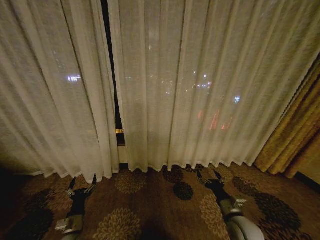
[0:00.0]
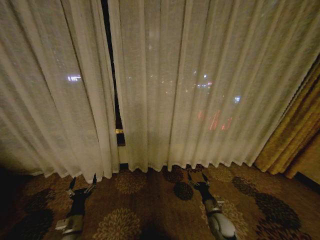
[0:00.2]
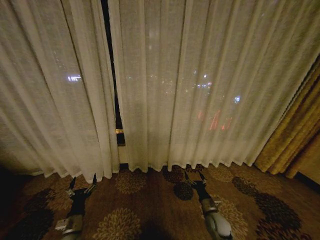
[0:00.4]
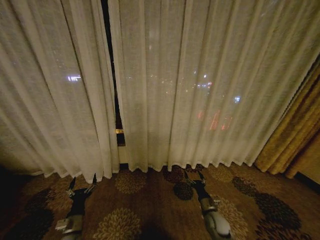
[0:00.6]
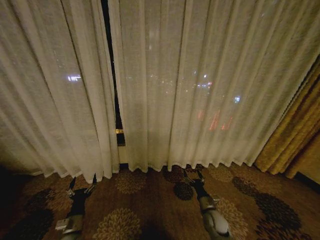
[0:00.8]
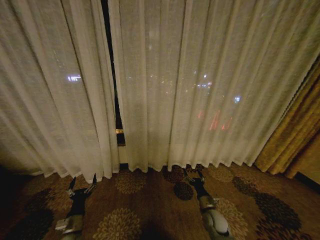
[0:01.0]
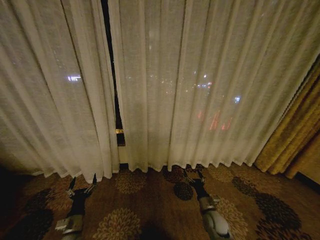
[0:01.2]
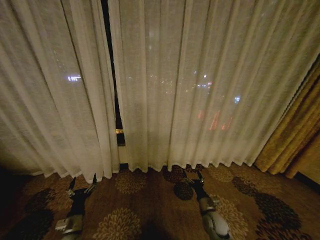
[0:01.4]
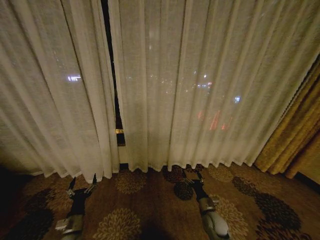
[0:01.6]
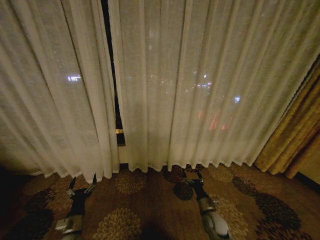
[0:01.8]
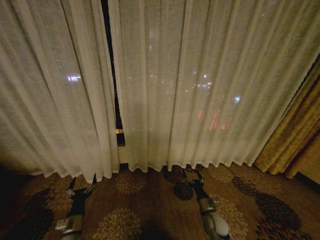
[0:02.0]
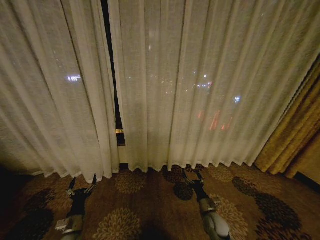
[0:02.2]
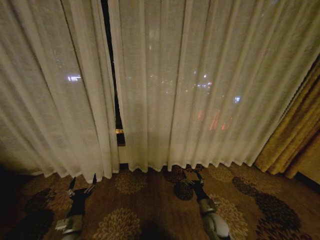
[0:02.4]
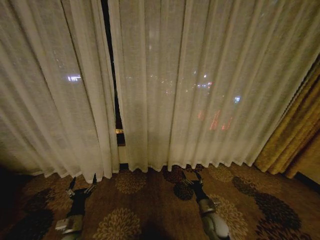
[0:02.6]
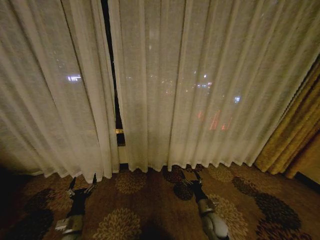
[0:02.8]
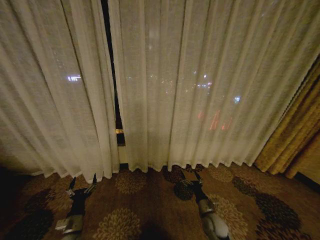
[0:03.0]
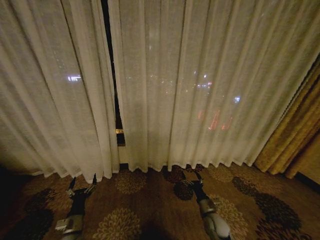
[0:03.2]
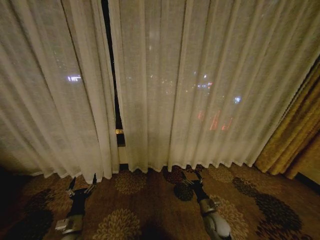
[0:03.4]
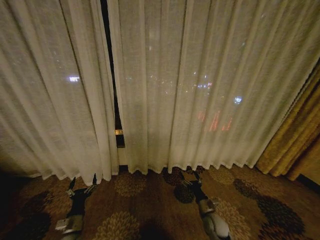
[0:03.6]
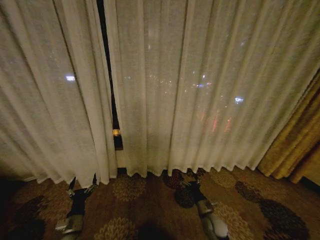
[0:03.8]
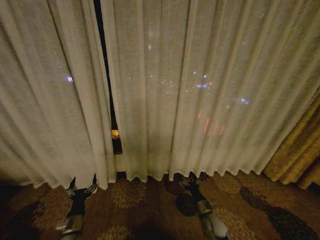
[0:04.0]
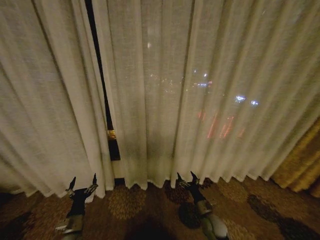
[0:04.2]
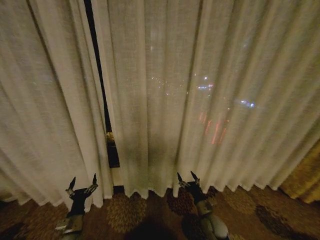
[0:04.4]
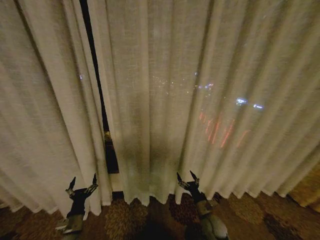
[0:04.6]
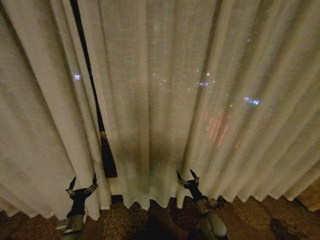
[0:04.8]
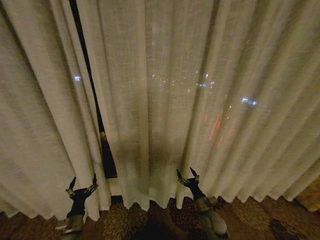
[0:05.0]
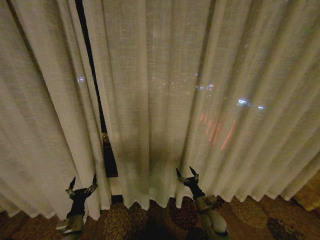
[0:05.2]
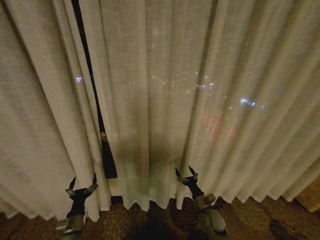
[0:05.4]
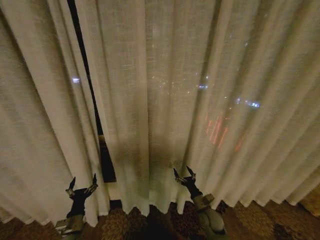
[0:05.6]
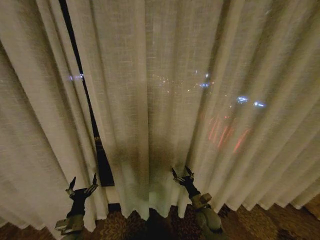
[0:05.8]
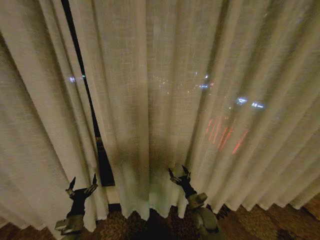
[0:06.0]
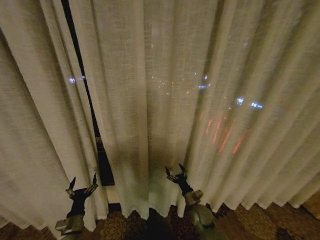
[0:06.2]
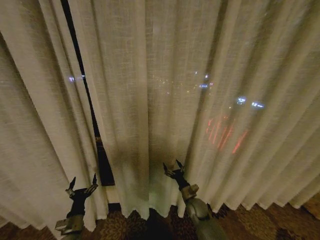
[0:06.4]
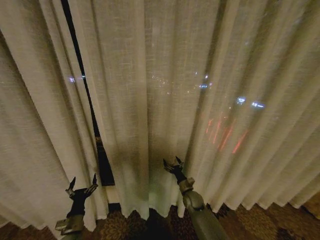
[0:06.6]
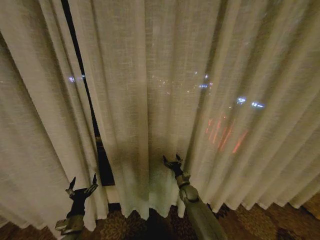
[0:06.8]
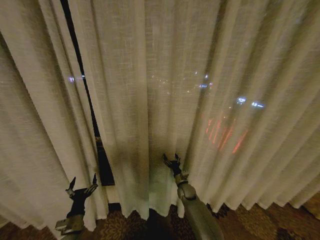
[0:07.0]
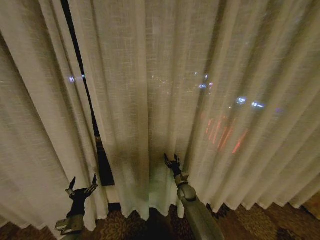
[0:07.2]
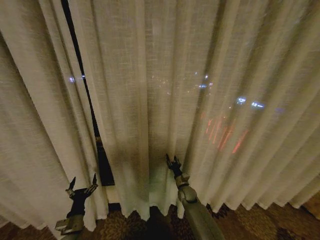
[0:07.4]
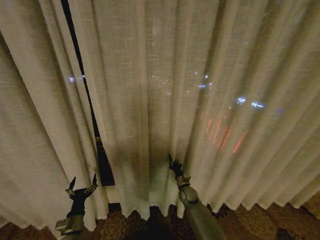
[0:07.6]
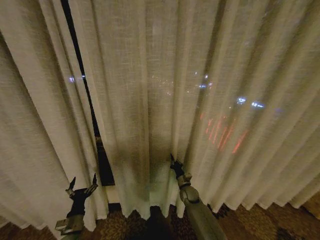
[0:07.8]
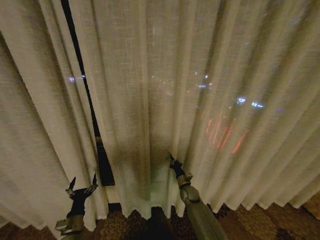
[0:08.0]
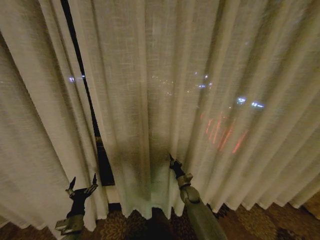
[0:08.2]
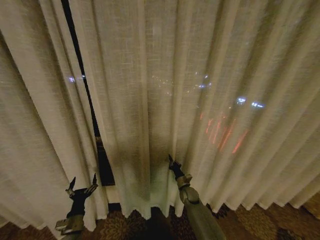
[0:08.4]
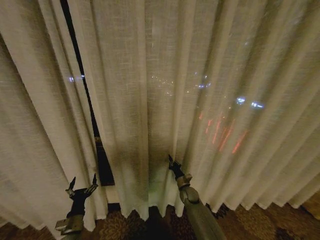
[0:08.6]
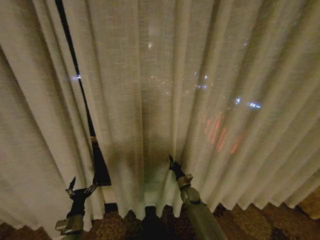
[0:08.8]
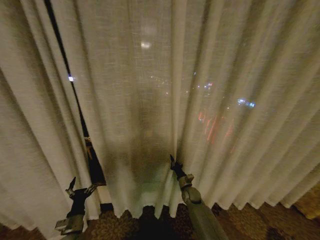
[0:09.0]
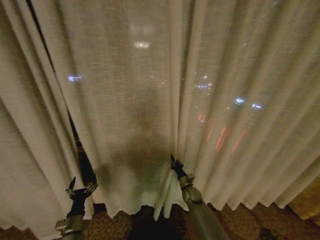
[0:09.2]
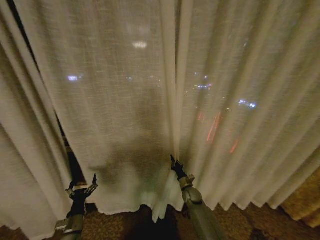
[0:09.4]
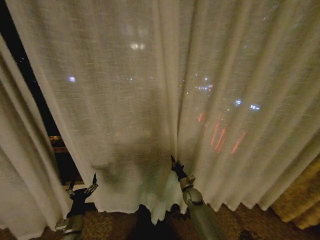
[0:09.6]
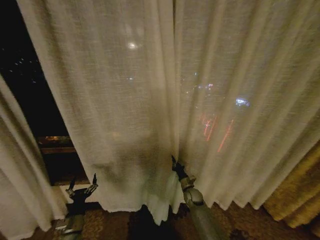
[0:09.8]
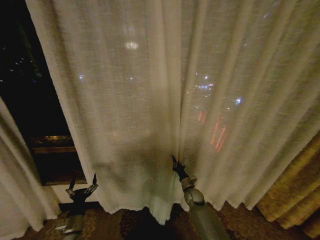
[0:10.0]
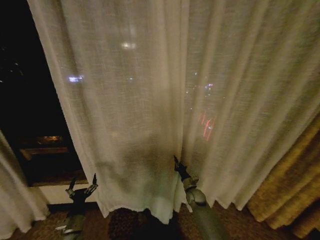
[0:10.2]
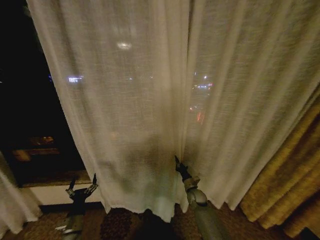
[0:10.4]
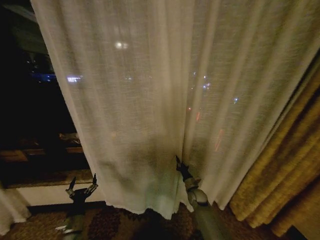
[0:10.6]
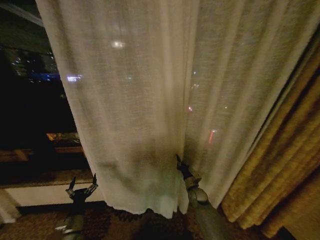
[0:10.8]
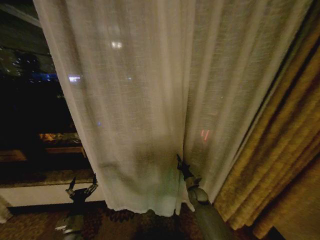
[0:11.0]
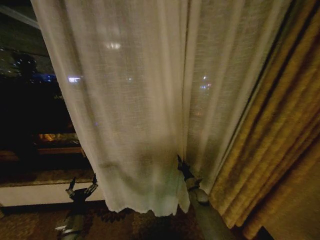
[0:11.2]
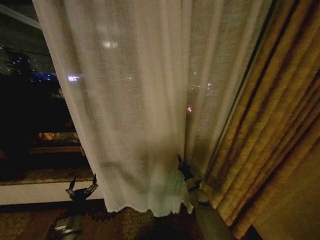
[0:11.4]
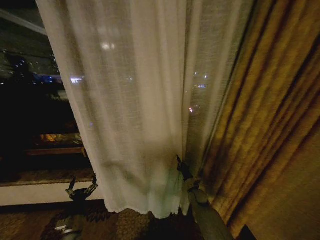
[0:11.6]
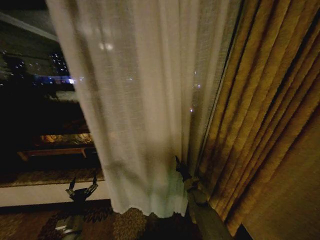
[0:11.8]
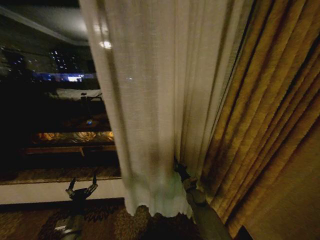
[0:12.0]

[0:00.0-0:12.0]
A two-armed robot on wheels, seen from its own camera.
Task of the whole recording: Open the curtains by pulling them apart, changing their state from closed to fully open.
0:01.6 to 0:03.0: Both grippers stay about where they are.
0:06.0 to 0:07.6: The right gripper heads forward, covering roughly 10 cm, and closes its fingers.

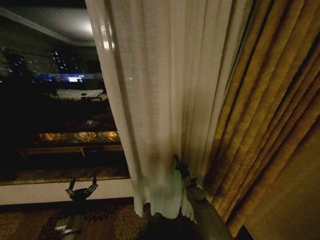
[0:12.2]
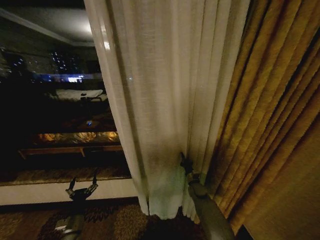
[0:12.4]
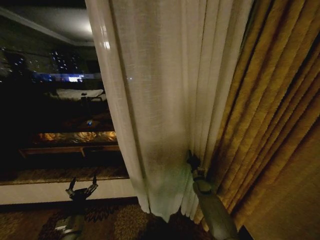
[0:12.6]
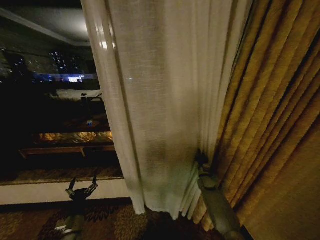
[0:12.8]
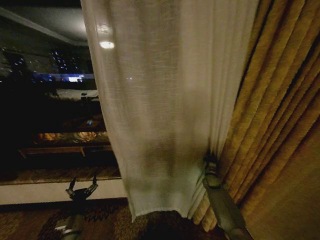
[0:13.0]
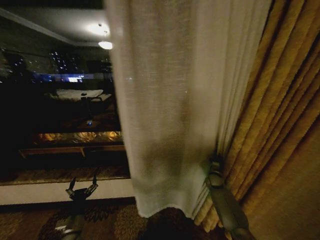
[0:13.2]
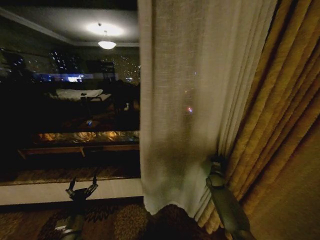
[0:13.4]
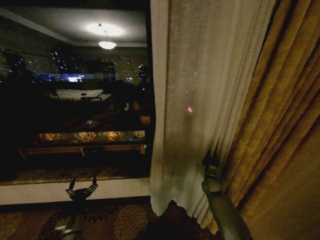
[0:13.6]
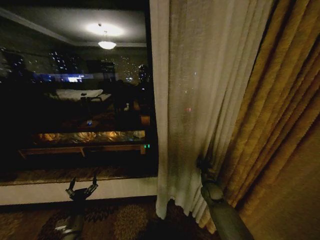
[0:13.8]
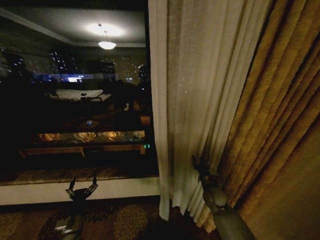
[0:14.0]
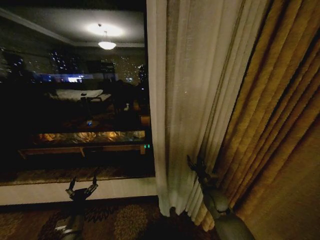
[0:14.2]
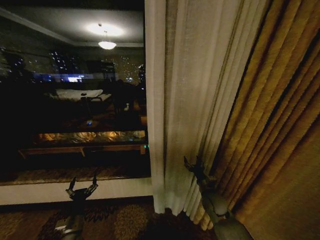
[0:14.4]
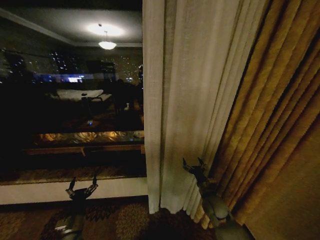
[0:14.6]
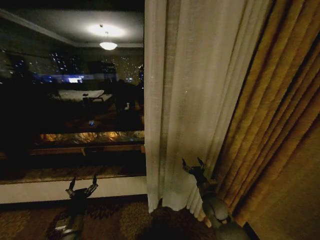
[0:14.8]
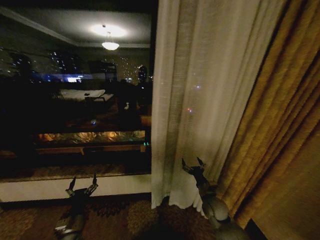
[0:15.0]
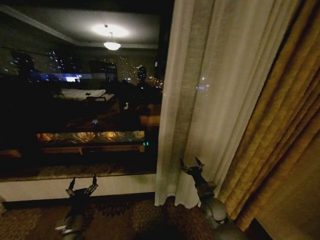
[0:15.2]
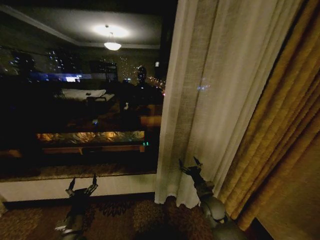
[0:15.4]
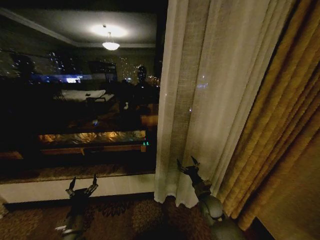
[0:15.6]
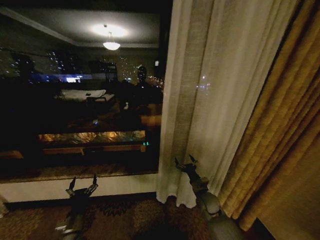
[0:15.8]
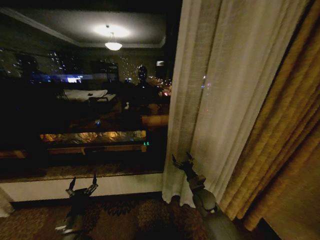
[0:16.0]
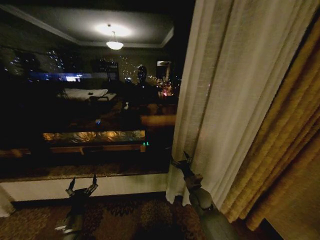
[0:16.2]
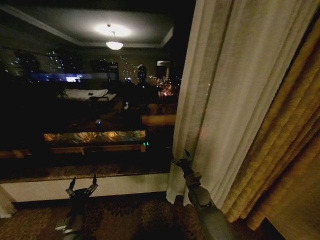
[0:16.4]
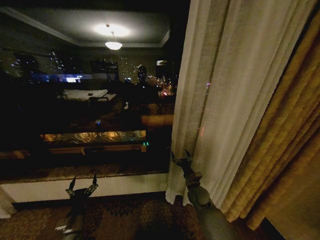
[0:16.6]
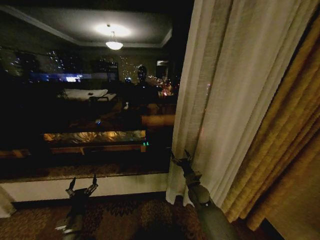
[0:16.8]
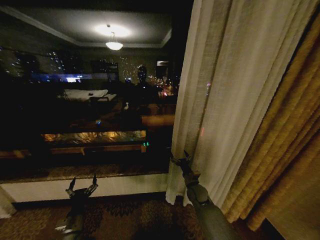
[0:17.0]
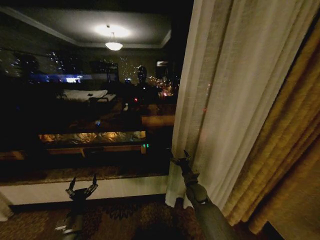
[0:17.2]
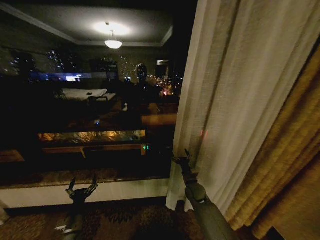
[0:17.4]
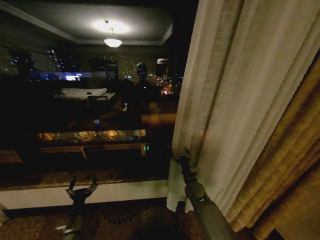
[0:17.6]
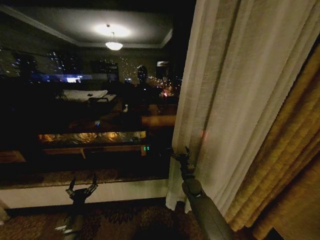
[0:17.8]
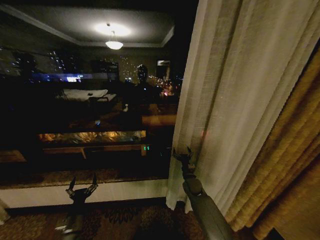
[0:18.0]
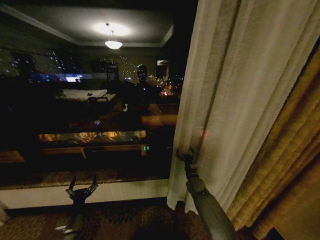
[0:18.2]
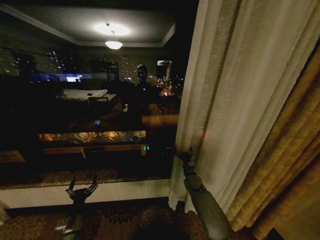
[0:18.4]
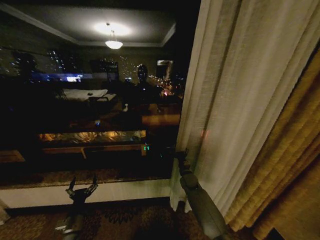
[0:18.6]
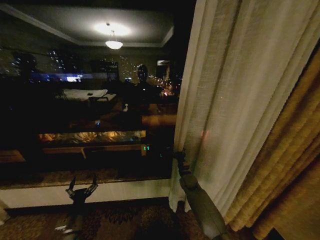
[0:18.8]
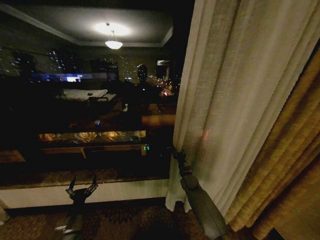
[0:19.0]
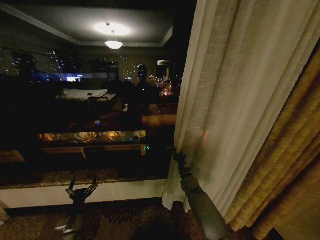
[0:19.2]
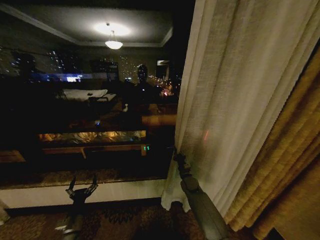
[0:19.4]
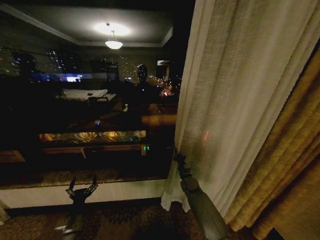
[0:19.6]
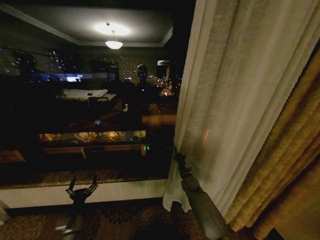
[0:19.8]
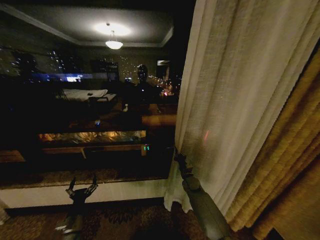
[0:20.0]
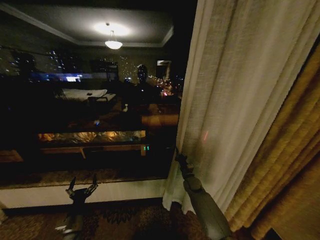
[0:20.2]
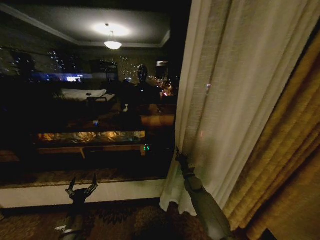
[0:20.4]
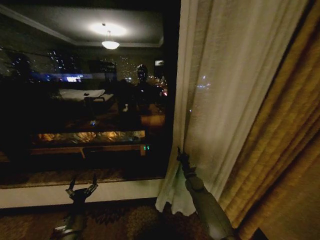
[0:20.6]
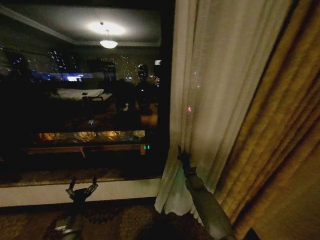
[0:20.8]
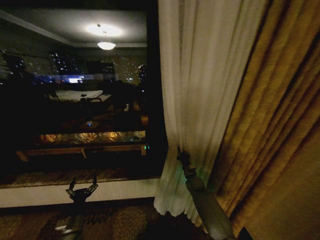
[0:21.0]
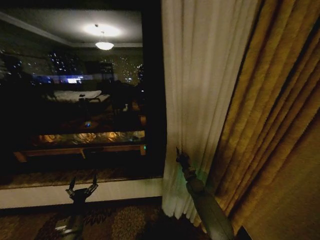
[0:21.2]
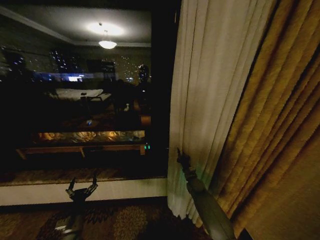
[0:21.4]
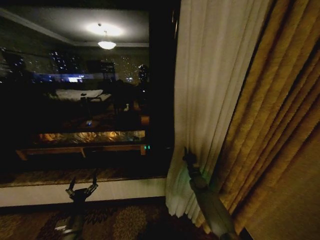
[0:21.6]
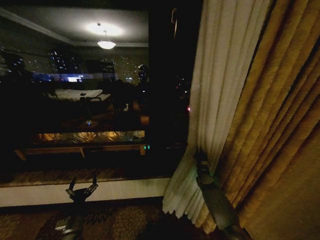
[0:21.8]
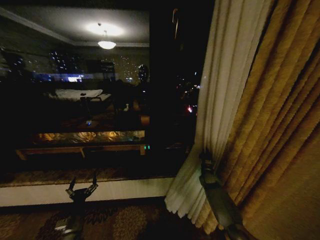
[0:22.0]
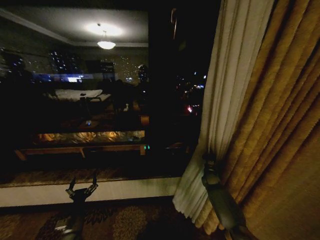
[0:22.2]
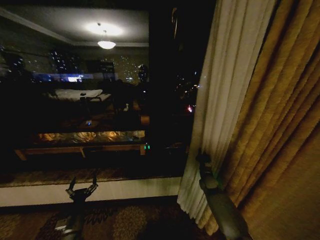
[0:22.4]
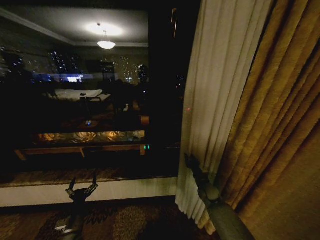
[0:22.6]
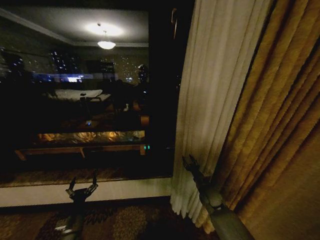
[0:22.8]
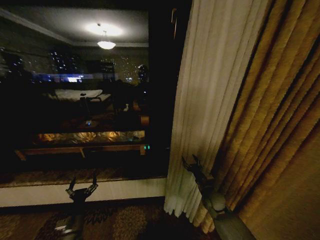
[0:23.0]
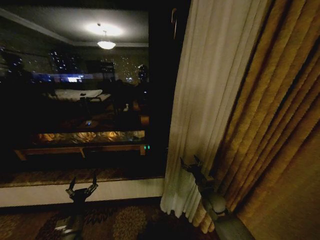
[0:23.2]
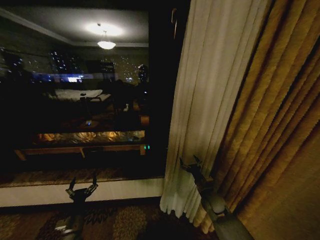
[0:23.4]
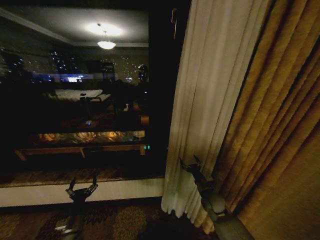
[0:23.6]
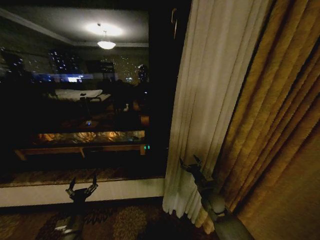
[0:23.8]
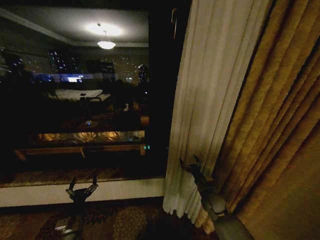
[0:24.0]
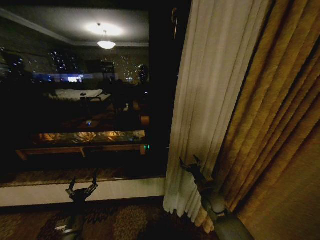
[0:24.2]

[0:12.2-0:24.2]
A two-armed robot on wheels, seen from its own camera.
Task of the whole recording: Open the curtains by pulling them apart, changing their state from closed to fully open.
0:12.2 to 0:13.8: The right gripper heads to the right and upward, covering some 10 cm.
0:13.8 to 0:15.2: The right gripper travels backward by some 10 cm, and opens.
0:15.2 to 0:16.6: The right gripper moves forward, approximately 5 cm.
0:16.6 to 0:18.2: The right gripper goes approximately 5 cm forward.
0:18.2 to 0:19.8: The right gripper closes.
0:22.6 to 0:24.2: The right gripper heads backward, covering about 5 cm, and opens up.
